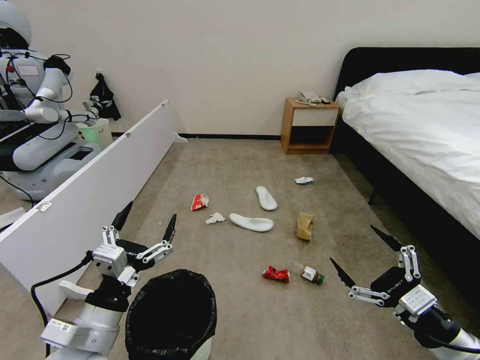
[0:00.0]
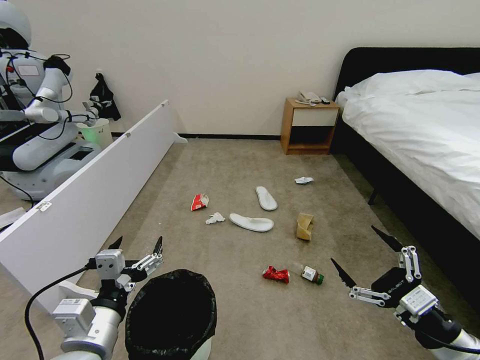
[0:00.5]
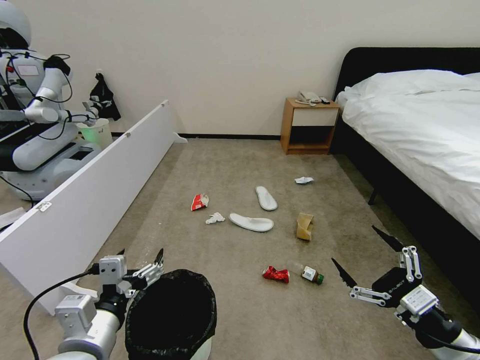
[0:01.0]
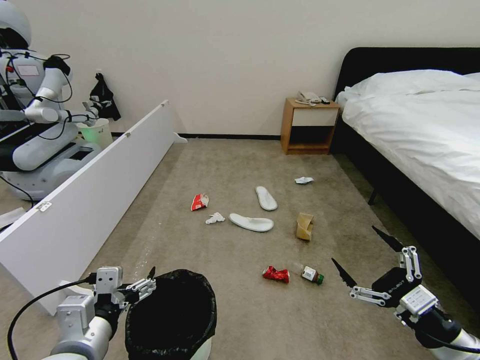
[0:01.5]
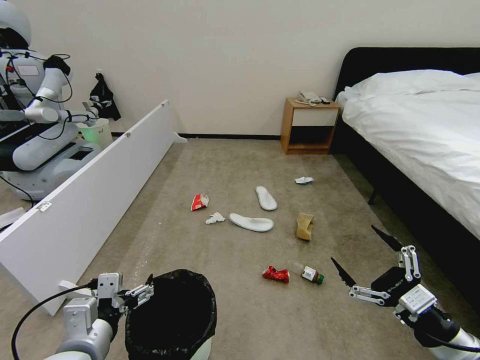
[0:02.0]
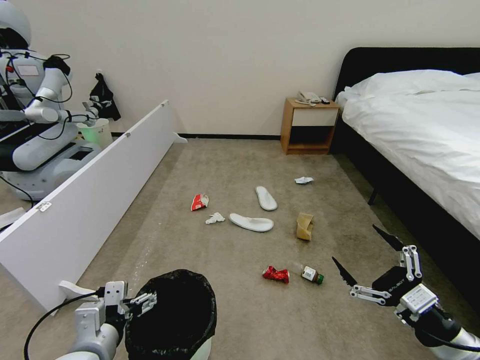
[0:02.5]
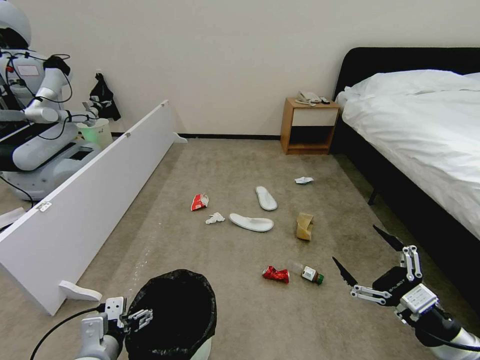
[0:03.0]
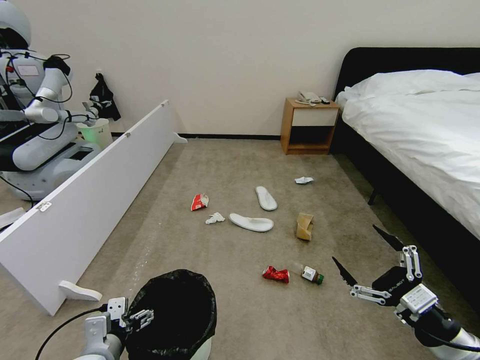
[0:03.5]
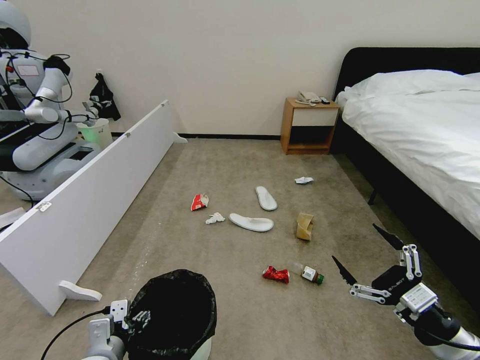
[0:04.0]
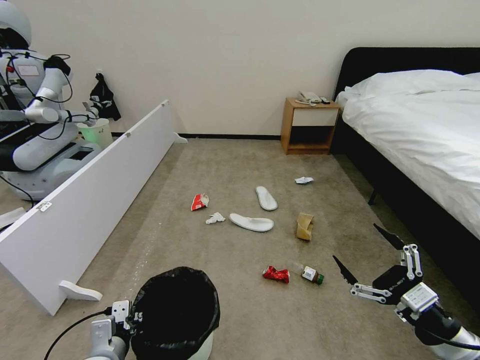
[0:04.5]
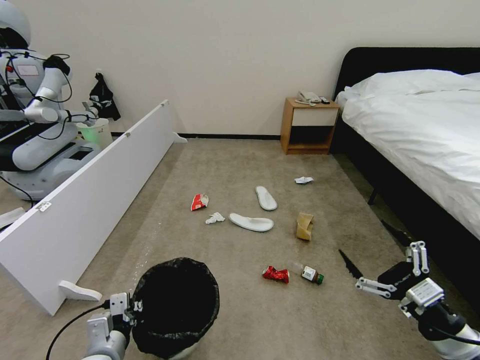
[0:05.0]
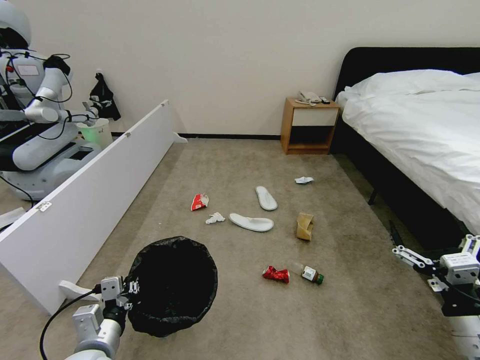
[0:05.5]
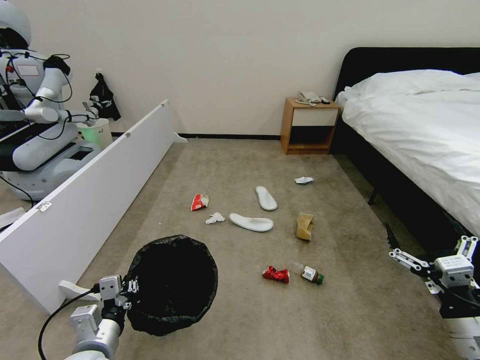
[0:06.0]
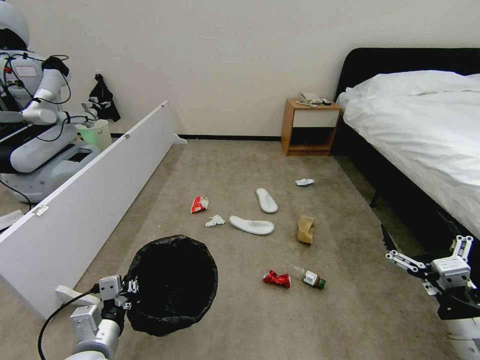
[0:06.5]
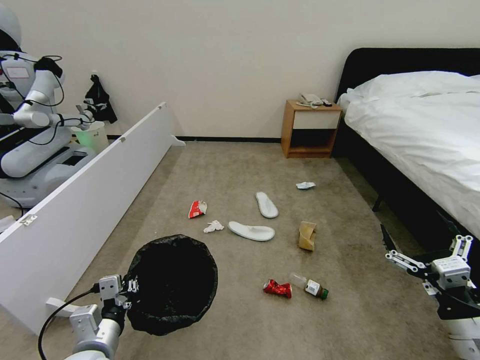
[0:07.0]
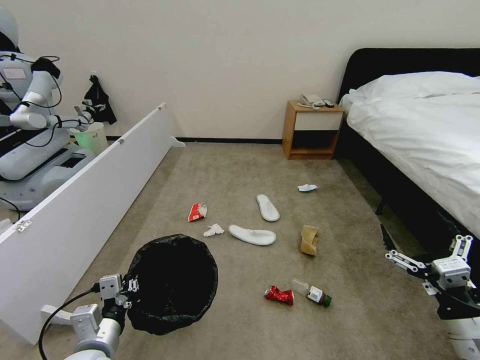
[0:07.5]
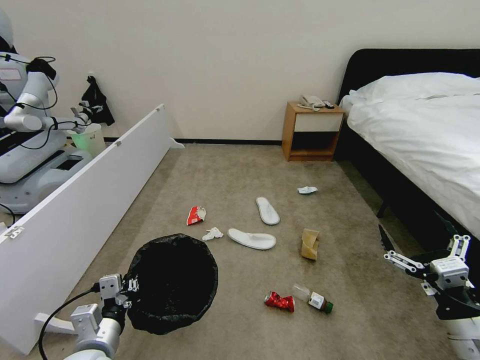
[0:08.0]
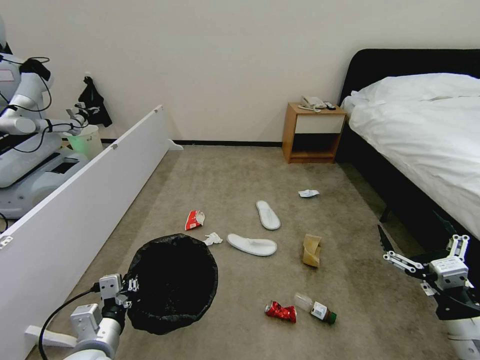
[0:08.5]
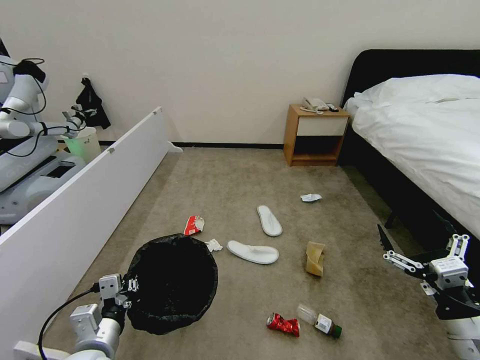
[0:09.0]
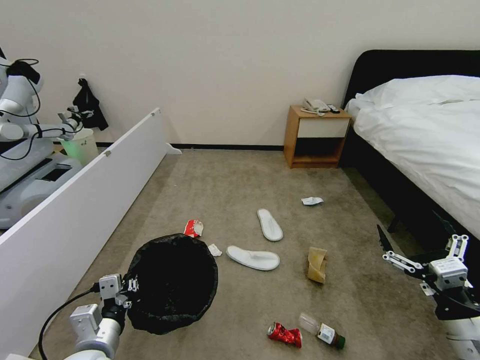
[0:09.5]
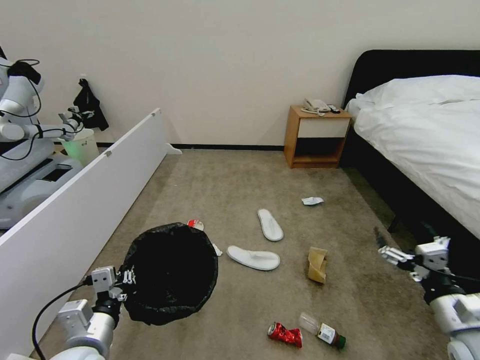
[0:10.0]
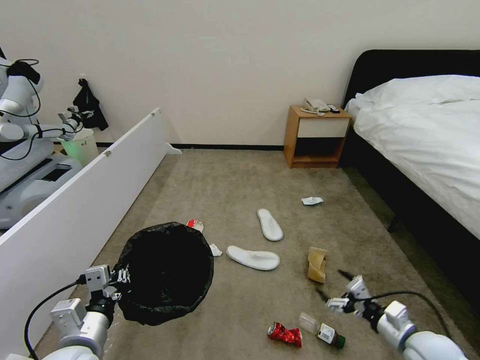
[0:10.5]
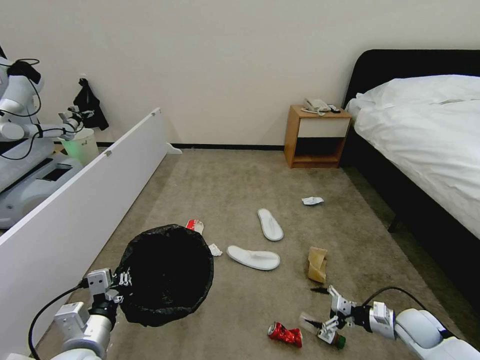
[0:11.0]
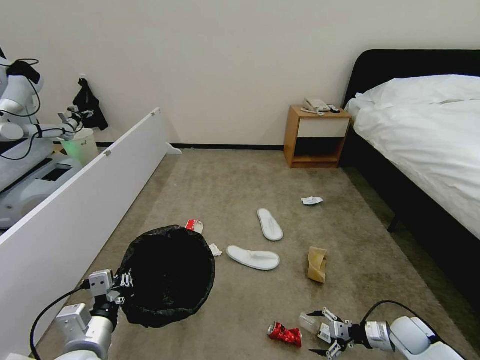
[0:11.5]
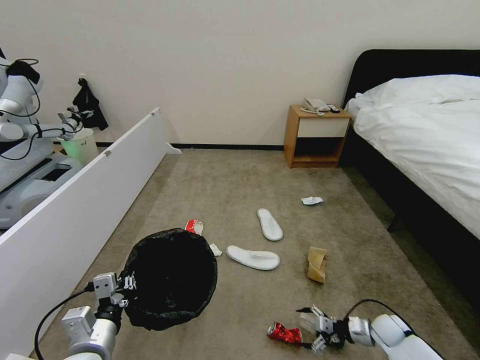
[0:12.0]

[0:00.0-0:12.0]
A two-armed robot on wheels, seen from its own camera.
Task of the whole recording: Pick up the trash bin, then pick up the garbage from the floor and place it into the trash bin.
0:02.0 to 0:04.0: The left gripper moves downward, approximately 10 cm, and closes its fingers.
0:04.0 to 0:06.0: The left gripper closes up.
0:06.0 to 0:08.0: Both grippers stay about where they are.
0:10.0 to 0:12.0: The right gripper goes approximately 30 cm downward and forward.

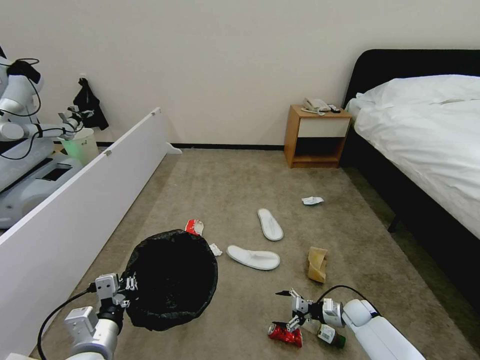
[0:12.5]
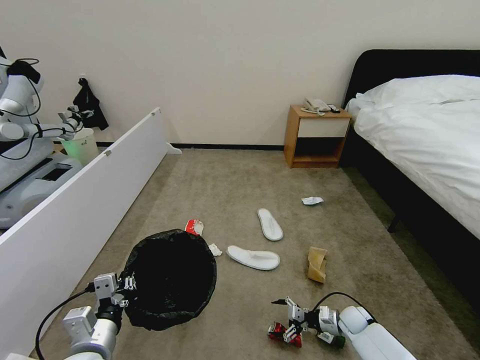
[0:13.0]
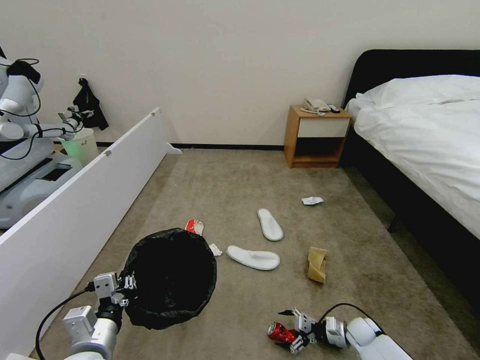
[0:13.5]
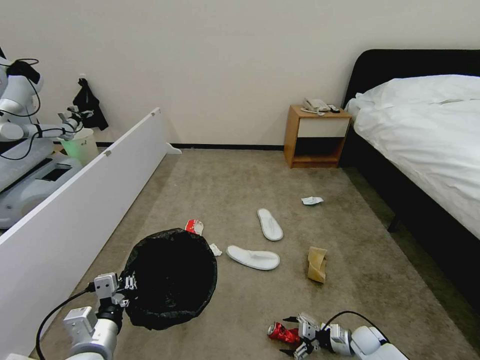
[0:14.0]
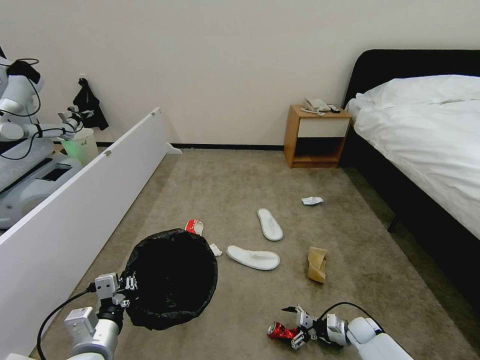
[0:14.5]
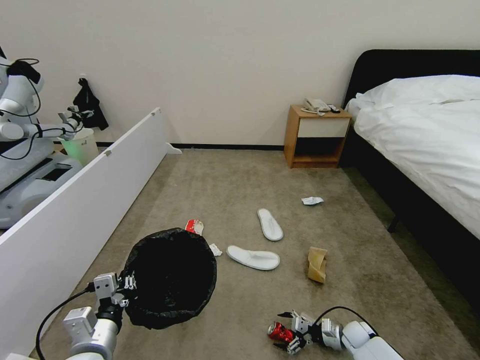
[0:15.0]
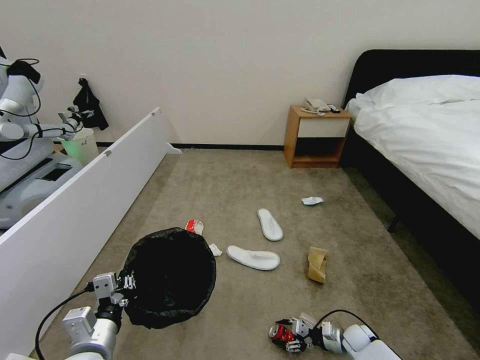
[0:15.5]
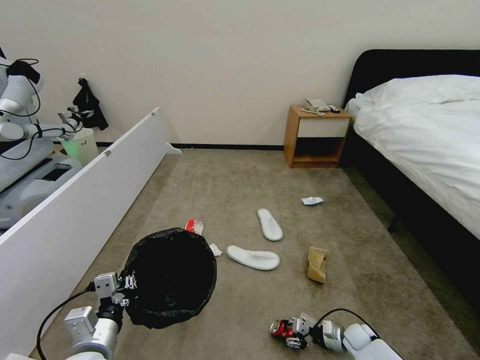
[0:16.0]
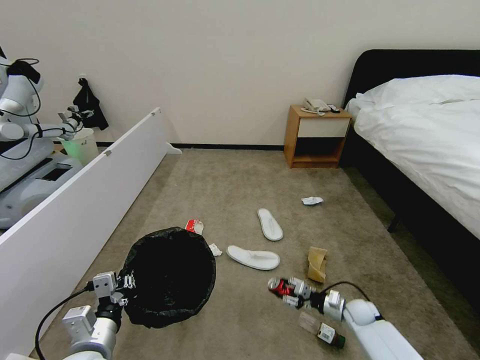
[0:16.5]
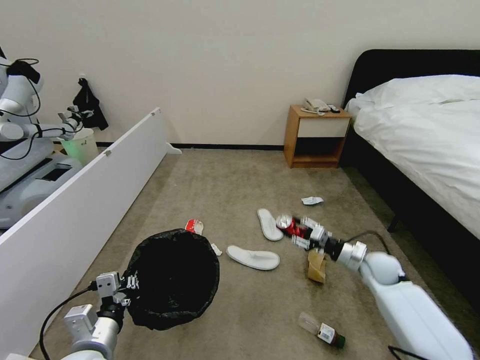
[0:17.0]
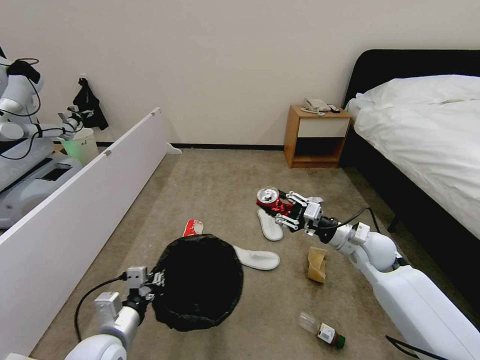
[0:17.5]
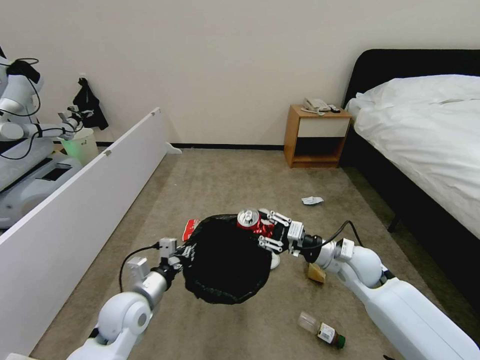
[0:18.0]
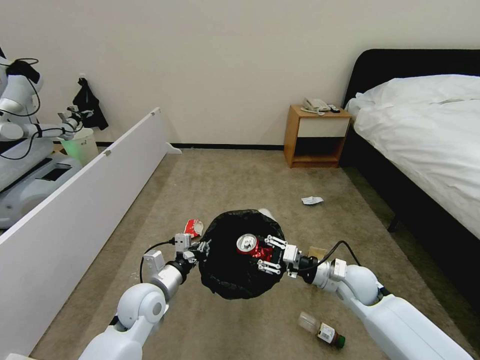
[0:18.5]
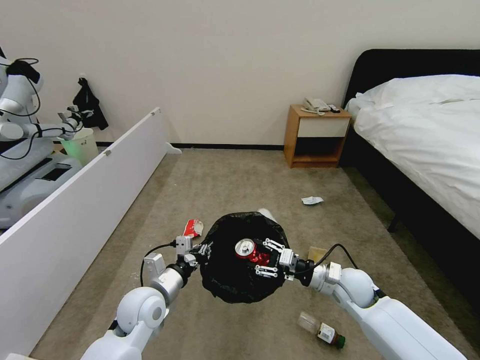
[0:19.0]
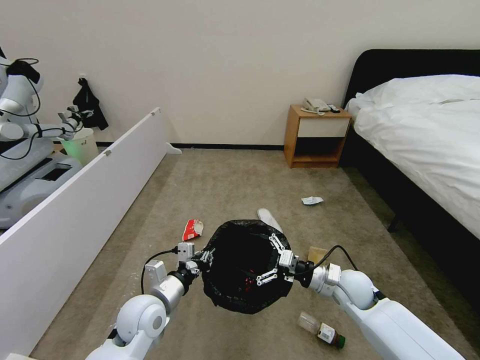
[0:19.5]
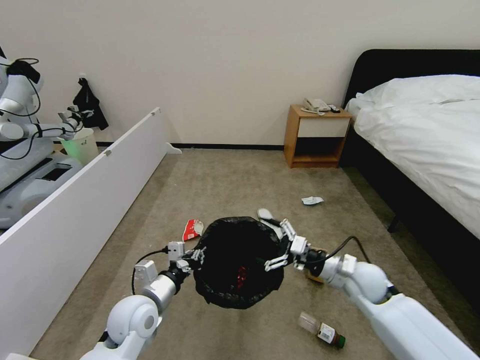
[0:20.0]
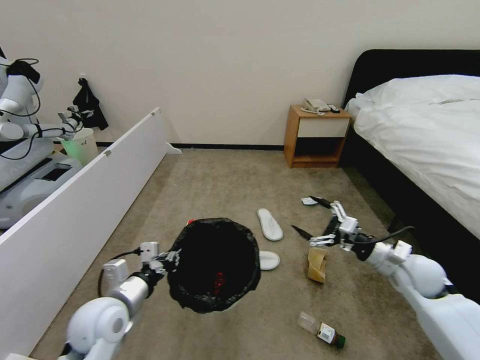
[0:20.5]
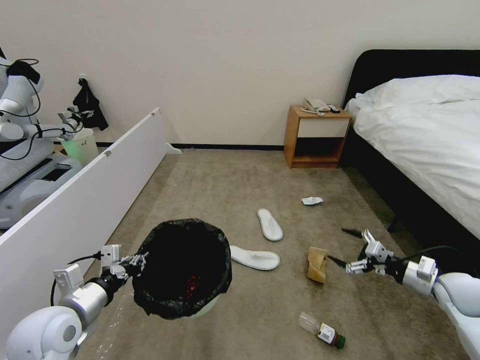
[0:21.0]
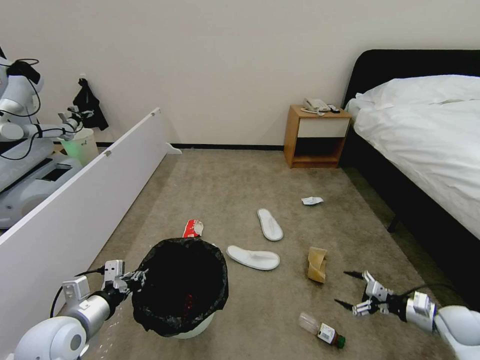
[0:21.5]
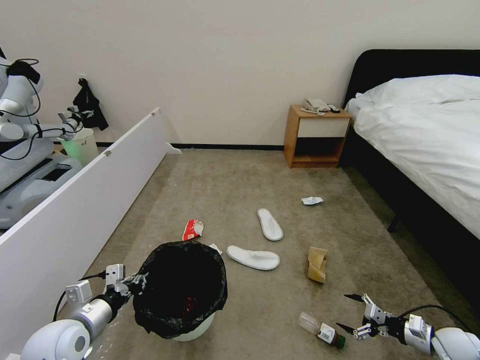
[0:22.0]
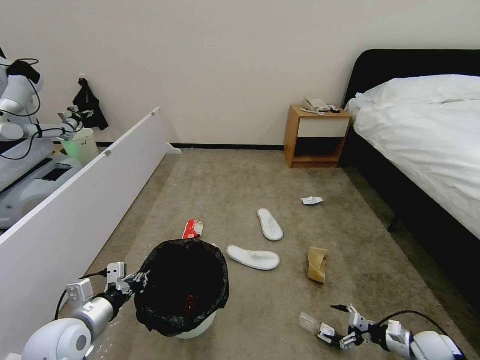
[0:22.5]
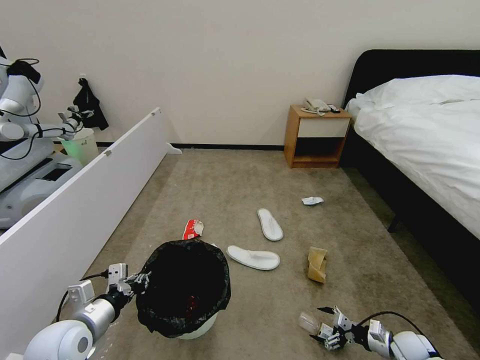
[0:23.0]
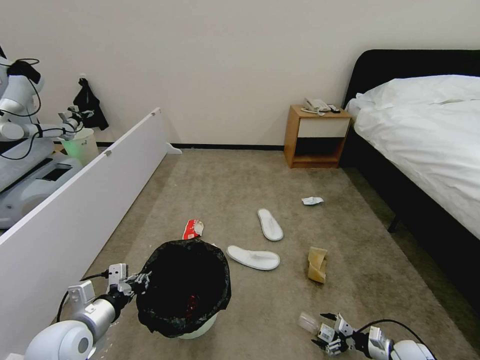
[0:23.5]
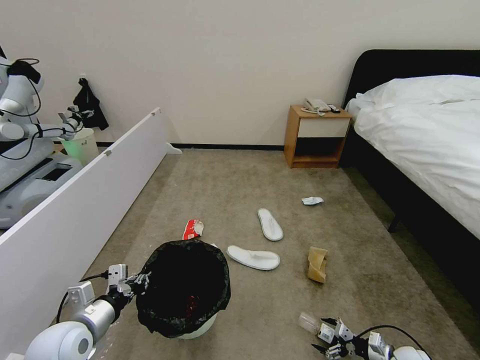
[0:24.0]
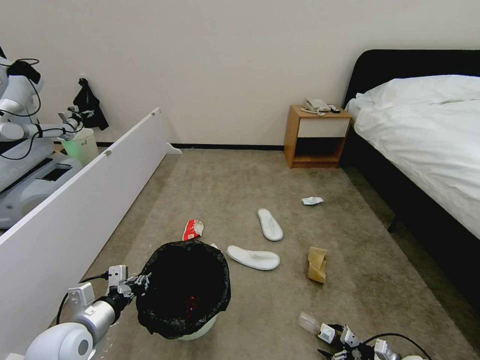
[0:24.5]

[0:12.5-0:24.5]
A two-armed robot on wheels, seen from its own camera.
Task of the whole recording: Pick up the trash bin, then pick up the garbage from the floor and place it into the trash bin.
0:12.5 to 0:14.5: The right gripper ends up roughly 5 cm from where it was.
0:14.5 to 0:16.5: The right gripper closes up.
0:16.5 to 0:18.5: The left gripper is displaced forward and to the right by about 15 cm, while the right gripper heads upward, covering about 25 cm.
0:18.5 to 0:20.5: The left gripper travels backward and to the left by about 10 cm. The right gripper is displaced to the right by approximately 10 cm, and opens.
0:20.5 to 0:22.5: The left gripper goes about 5 cm to the left. Meanwhile the right gripper shifts approximately 25 cm downward and to the right.
0:22.5 to 0:24.5: The right gripper travels downward by some 10 cm.

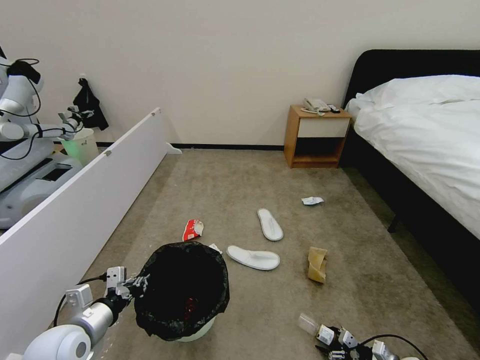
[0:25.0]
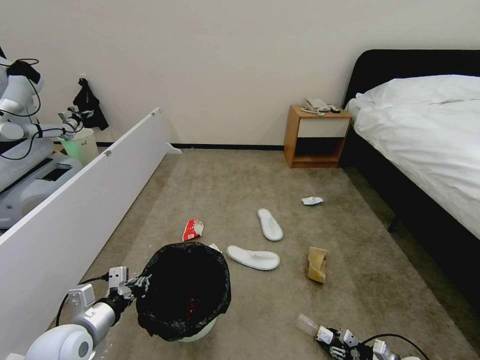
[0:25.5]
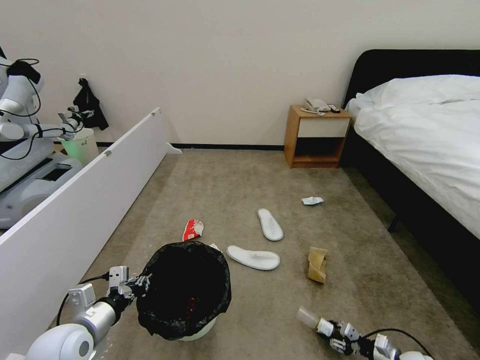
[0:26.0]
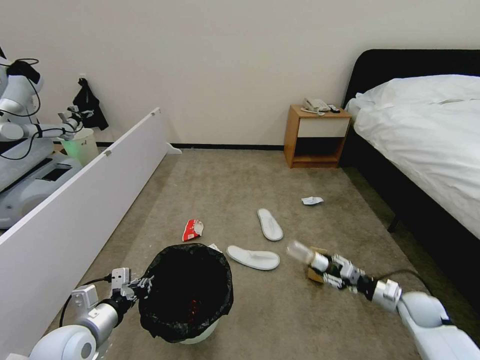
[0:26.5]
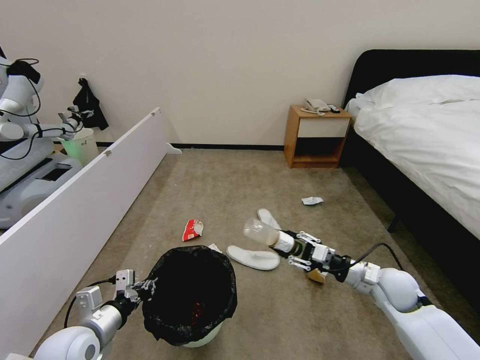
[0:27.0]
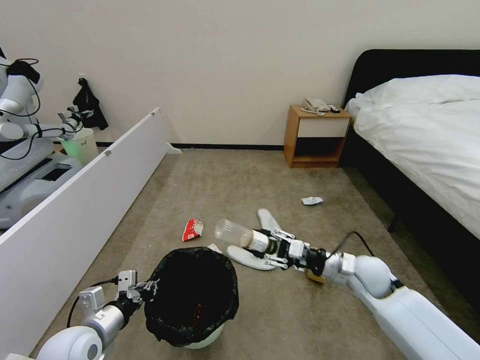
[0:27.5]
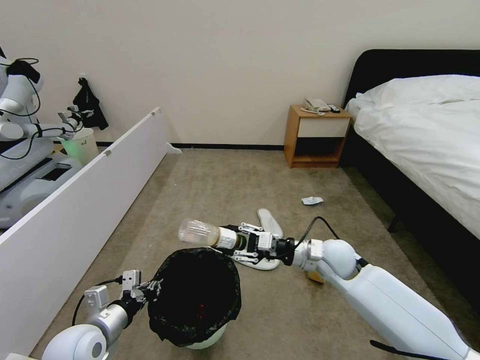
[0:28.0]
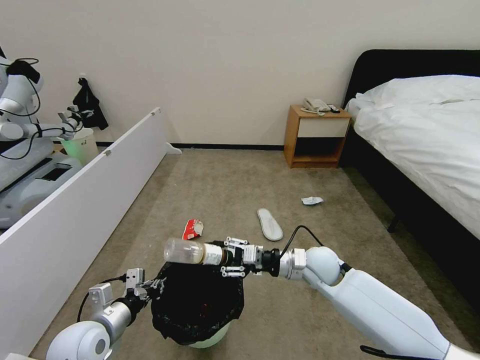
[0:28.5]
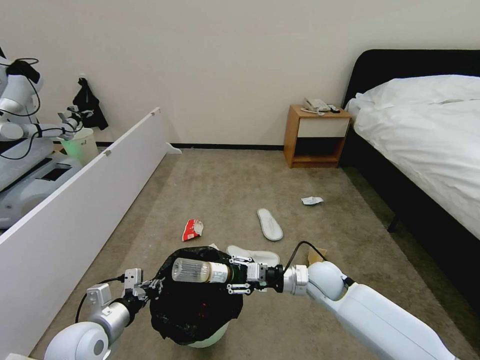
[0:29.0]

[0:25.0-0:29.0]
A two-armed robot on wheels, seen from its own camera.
Task of the whole recording: Pick up the trash bin, then pick up the garbage from the floor and place it into the trash bin.
0:25.0 to 0:27.0: The right gripper is displaced upward and to the left by approximately 30 cm.
0:27.0 to 0:29.0: The right gripper is displaced to the left by roughly 15 cm.
